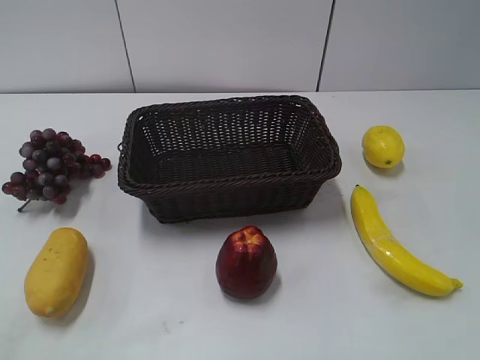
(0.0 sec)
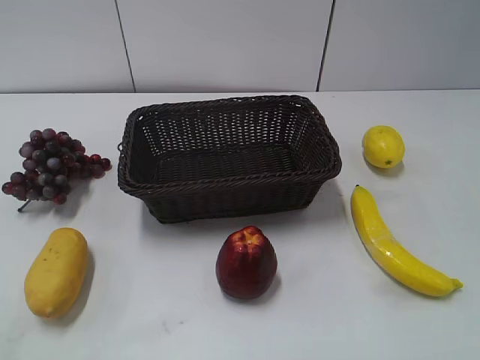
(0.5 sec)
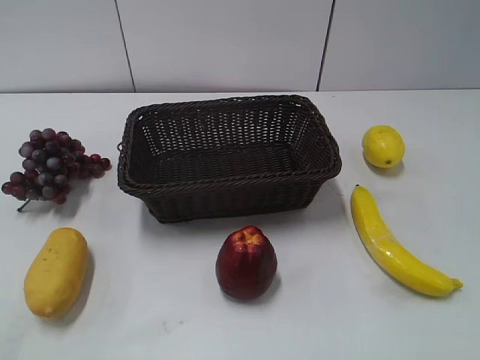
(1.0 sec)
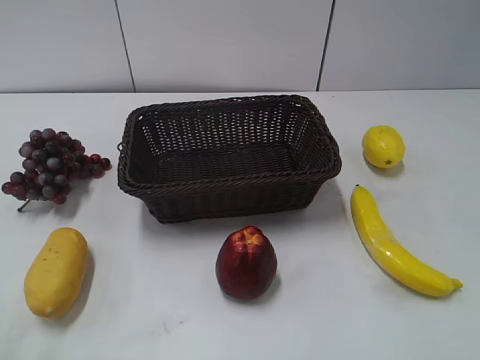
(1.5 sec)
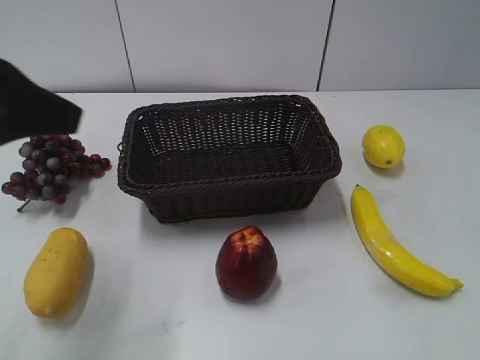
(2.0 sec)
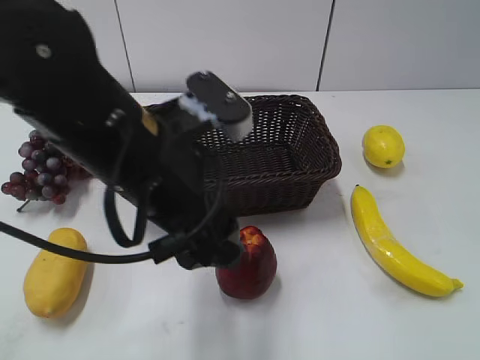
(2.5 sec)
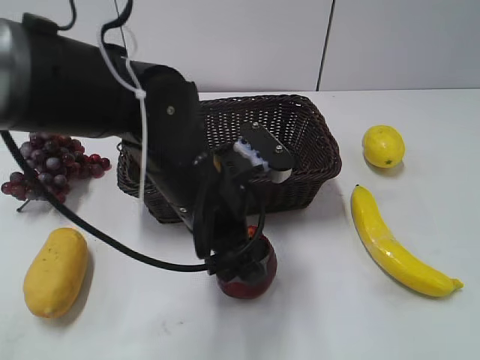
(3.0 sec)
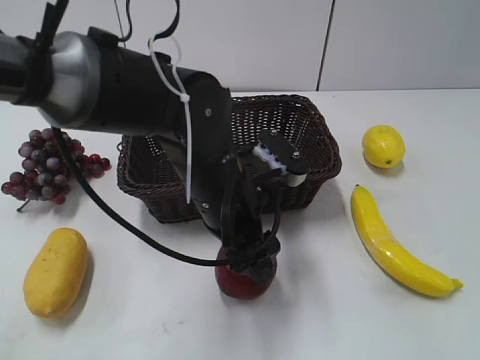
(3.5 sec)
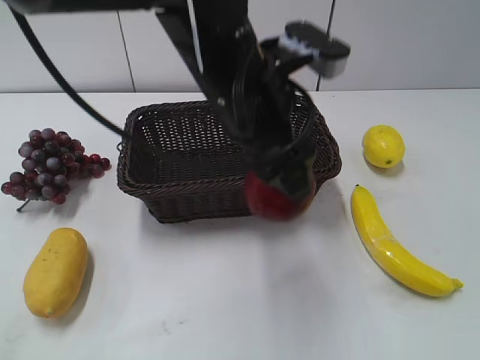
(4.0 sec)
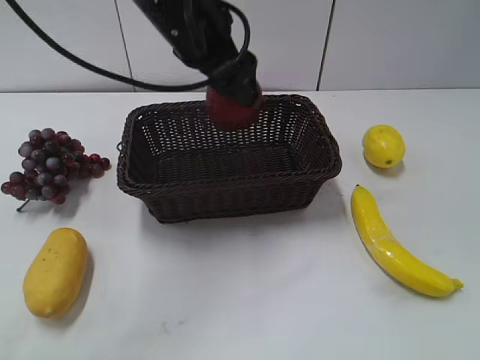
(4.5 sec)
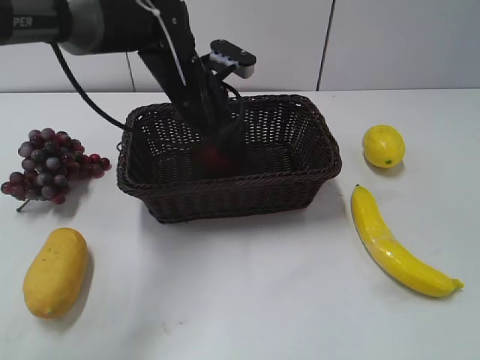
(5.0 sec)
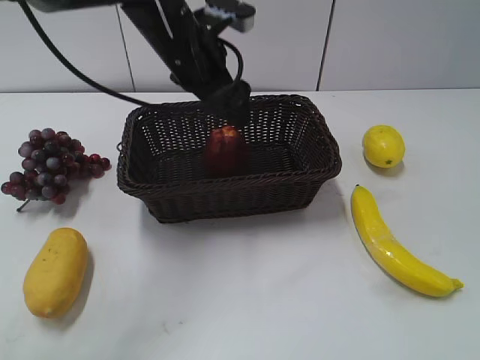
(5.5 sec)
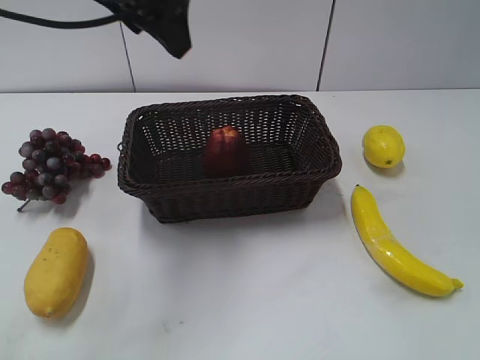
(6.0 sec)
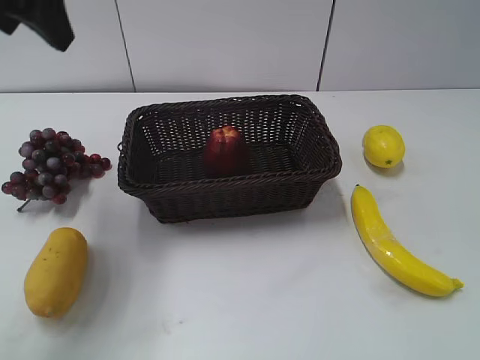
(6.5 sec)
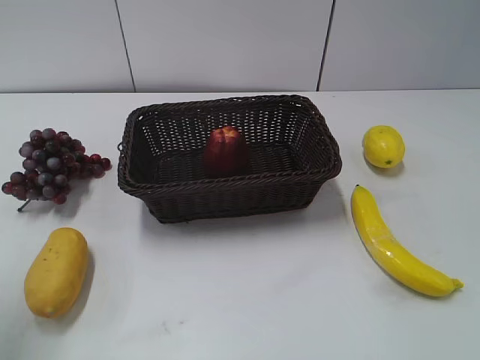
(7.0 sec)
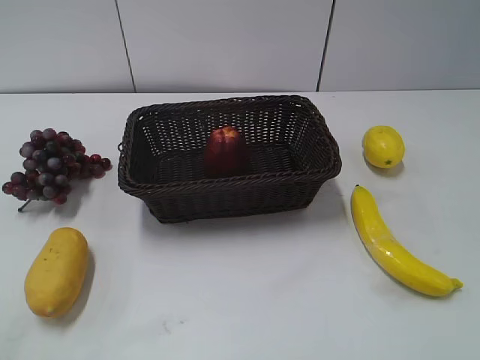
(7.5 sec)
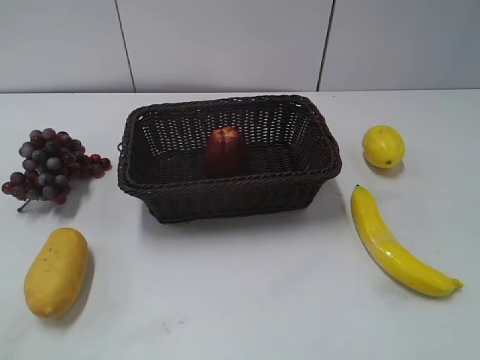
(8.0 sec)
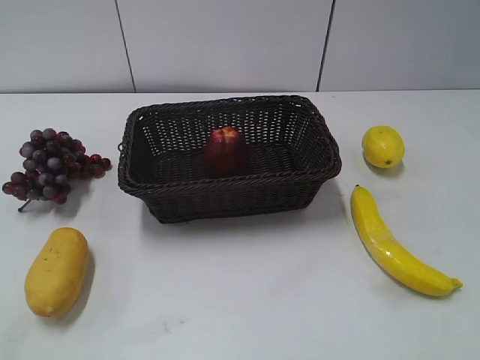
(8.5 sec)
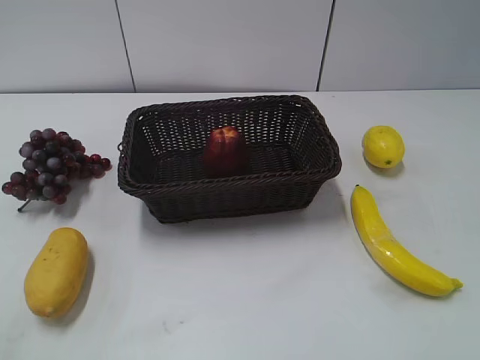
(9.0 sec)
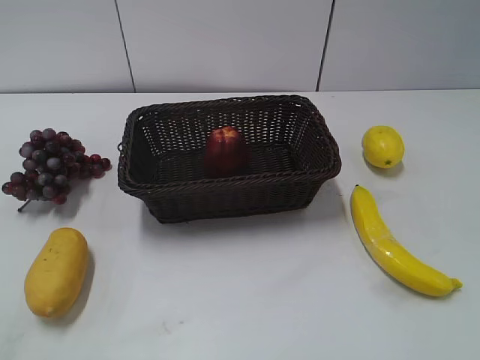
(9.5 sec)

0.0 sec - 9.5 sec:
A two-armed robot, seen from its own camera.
Step, 2.0 sec - 3.0 sec: Grasp the apple with left gripper.
Step, 3.5 sec - 5.0 sec: Place the apple in the basket with left gripper.
2.0 sec - 4.0 sec: The left gripper heads to the right, covering about 20 cm, and closes its fingers.
4.0 sec - 5.5 sec: The left gripper heads forward and to the left, covering roughly 15 cm, and opens its fingers.
5.5 sec - 7.5 sec: The left gripper goes some 40 cm backward and to the left, and closes its fingers.
